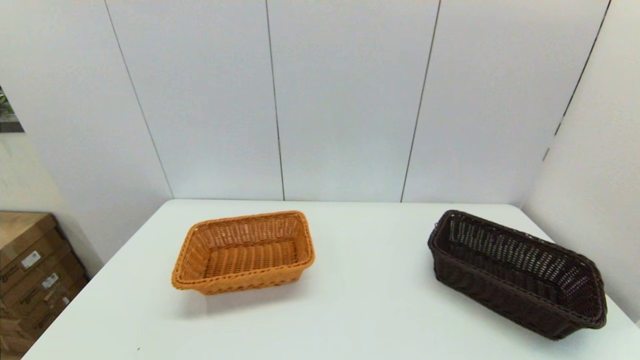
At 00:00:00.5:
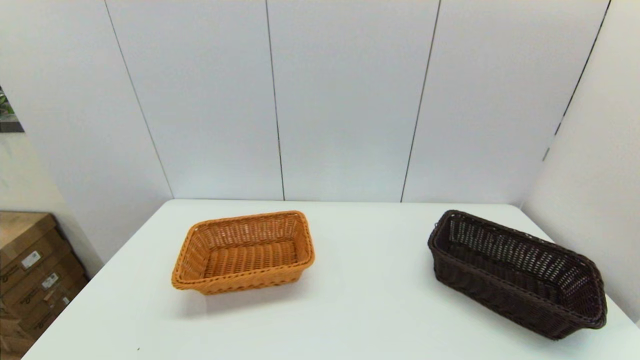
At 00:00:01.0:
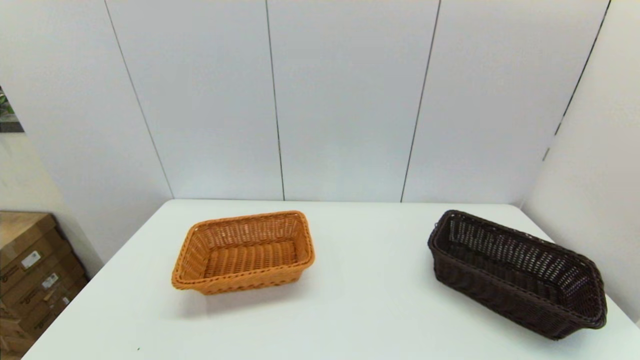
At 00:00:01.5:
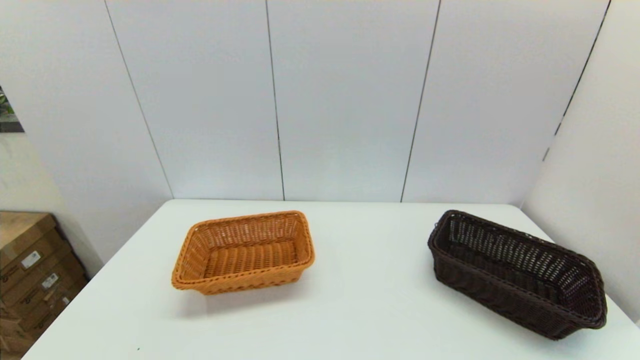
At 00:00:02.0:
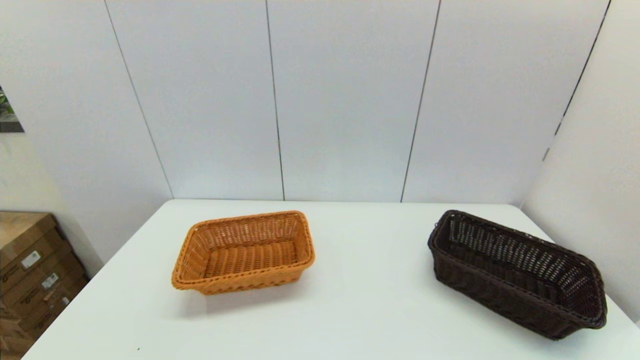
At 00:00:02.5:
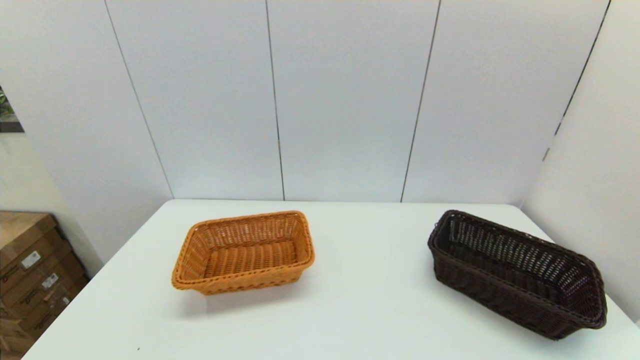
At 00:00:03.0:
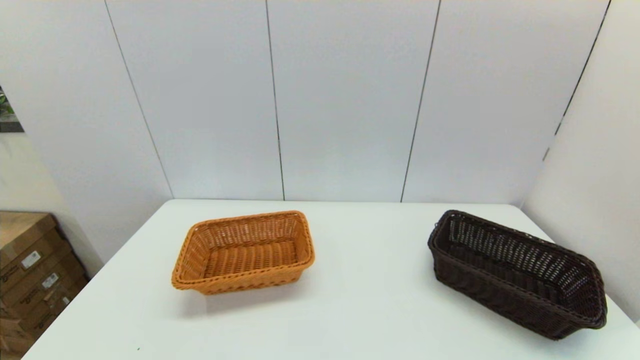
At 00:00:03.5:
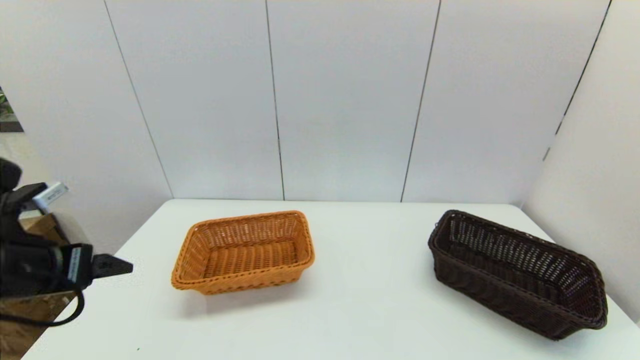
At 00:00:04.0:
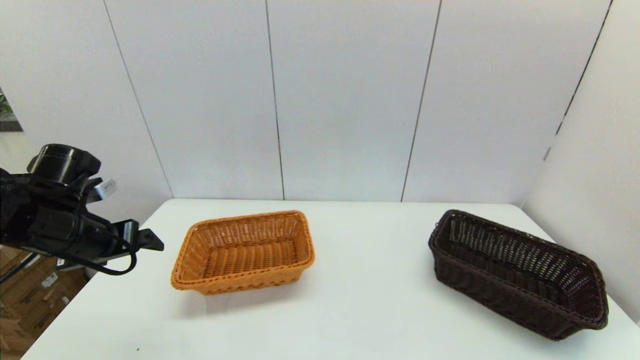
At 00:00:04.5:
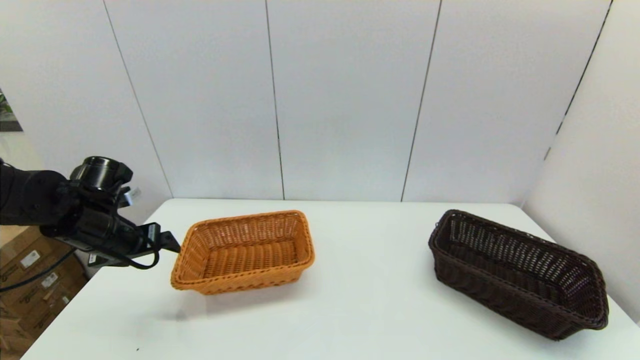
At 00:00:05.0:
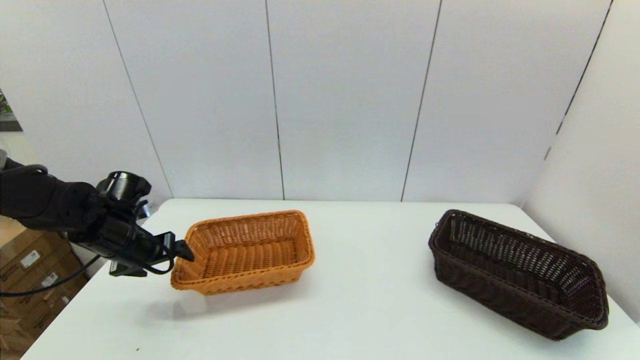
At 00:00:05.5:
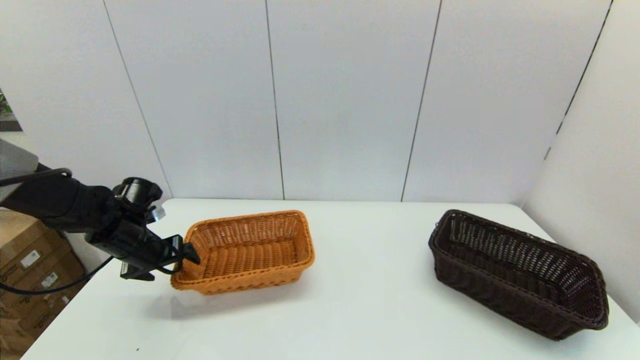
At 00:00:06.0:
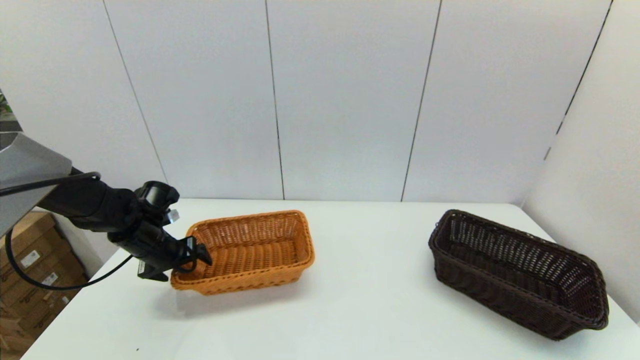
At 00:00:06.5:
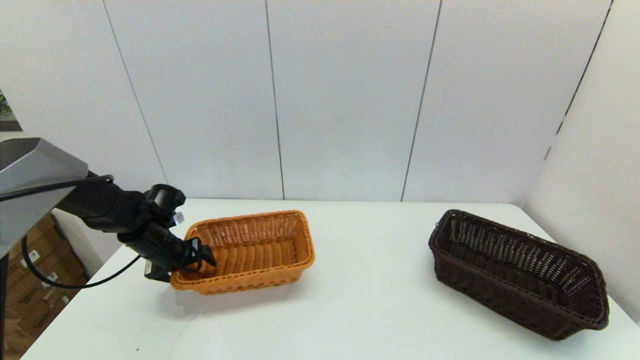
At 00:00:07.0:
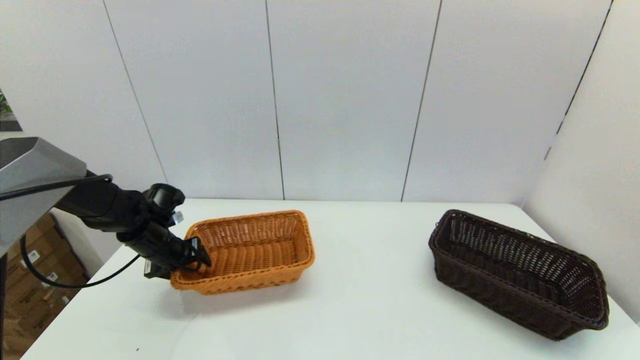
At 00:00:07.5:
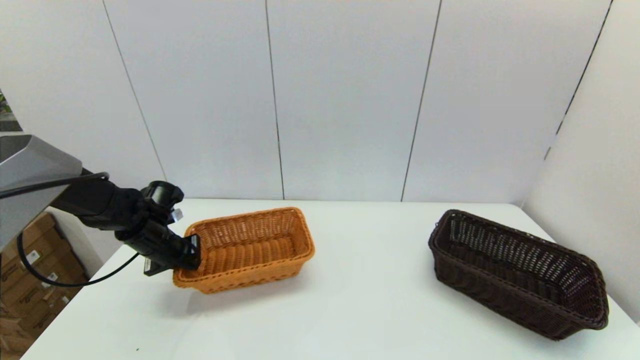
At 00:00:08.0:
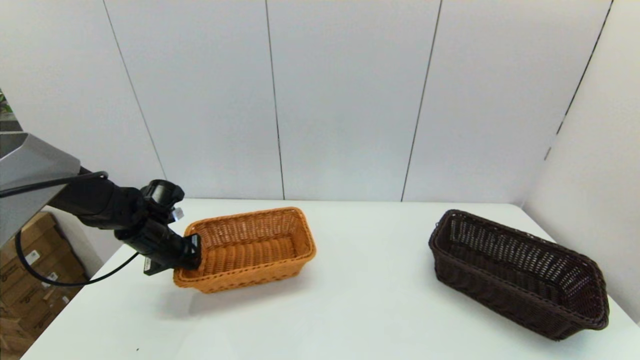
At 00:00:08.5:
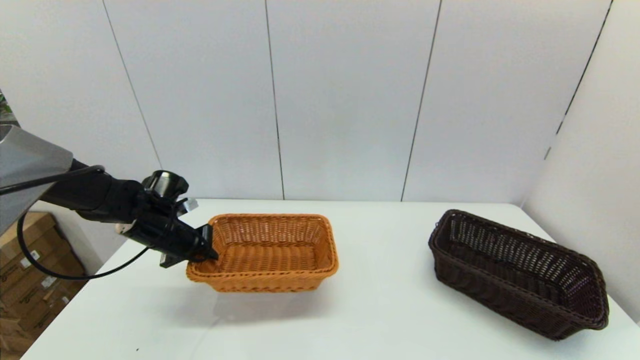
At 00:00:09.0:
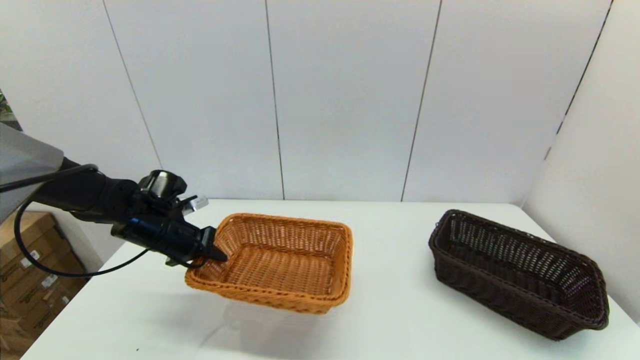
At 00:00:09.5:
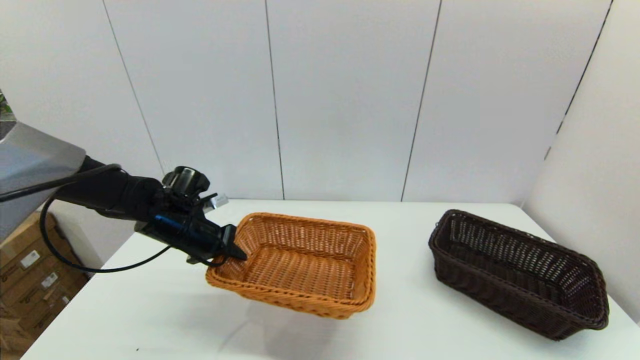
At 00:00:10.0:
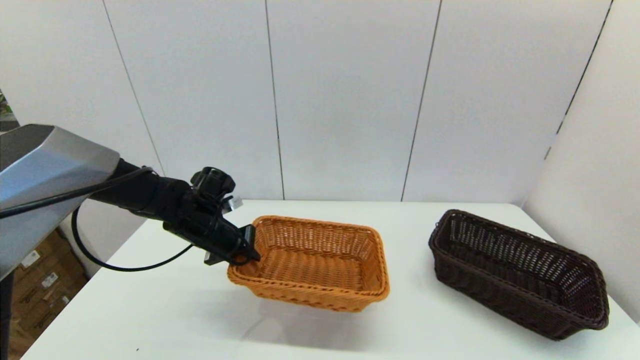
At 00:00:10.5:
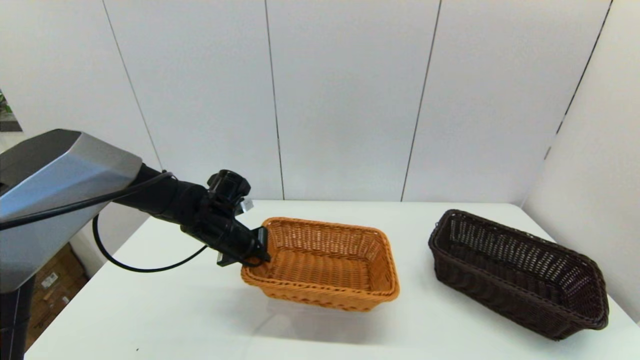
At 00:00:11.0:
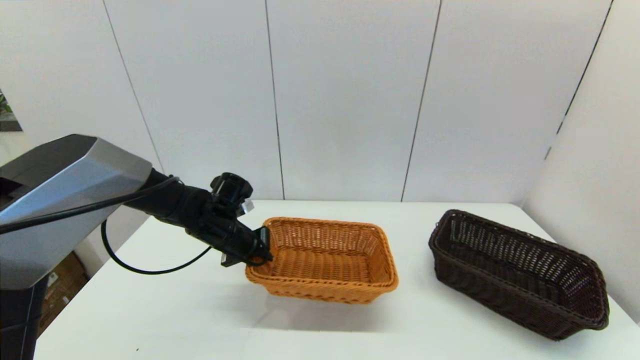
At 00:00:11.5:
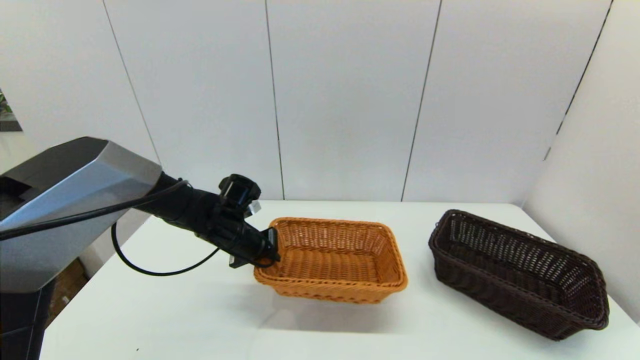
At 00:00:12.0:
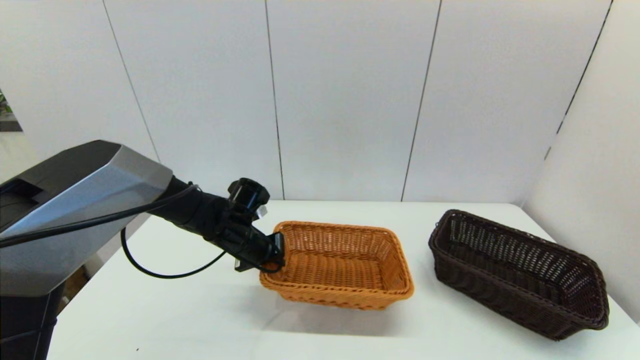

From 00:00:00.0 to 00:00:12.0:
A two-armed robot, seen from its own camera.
Task of the whole recording: stack a basket on top of another basket.
Step, from 00:00:03.0 to 00:00:08.5: Grasp the light basket with the left gripper.
From 00:00:00.0 to 00:00:02.0: Neither gripper changes place.
From 00:00:02.0 to 00:00:04.0: The left gripper travels forward by about 30 cm.
From 00:00:04.0 to 00:00:06.0: The left gripper moves downward and forward, roughly 15 cm.
From 00:00:06.0 to 00:00:08.0: The left gripper closes.
From 00:00:08.0 to 00:00:10.0: The left gripper is displaced to the right by roughly 10 cm.
From 00:00:10.0 to 00:00:12.0: The left gripper is displaced to the right by roughly 5 cm.

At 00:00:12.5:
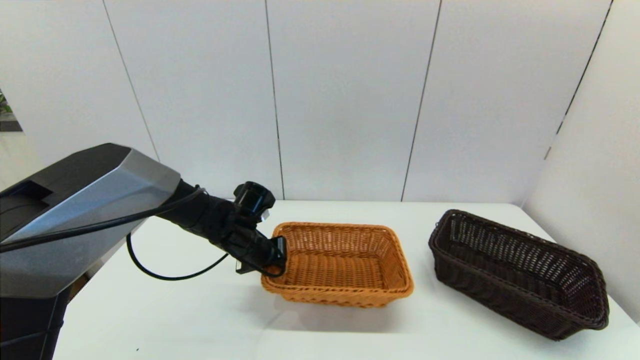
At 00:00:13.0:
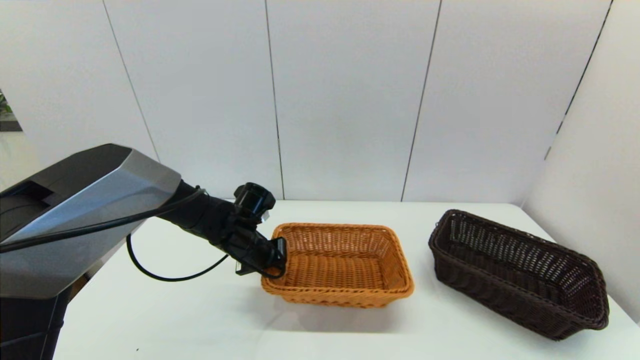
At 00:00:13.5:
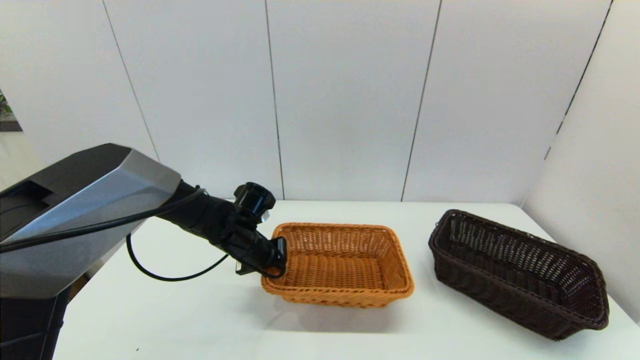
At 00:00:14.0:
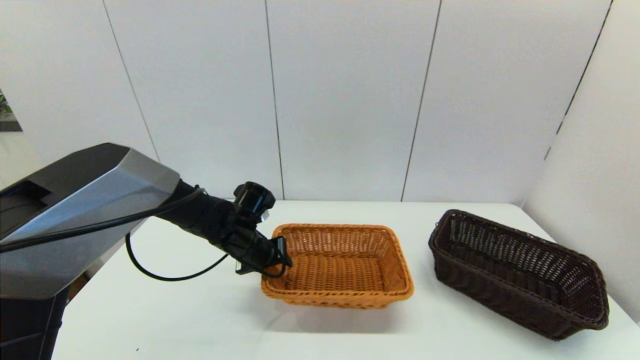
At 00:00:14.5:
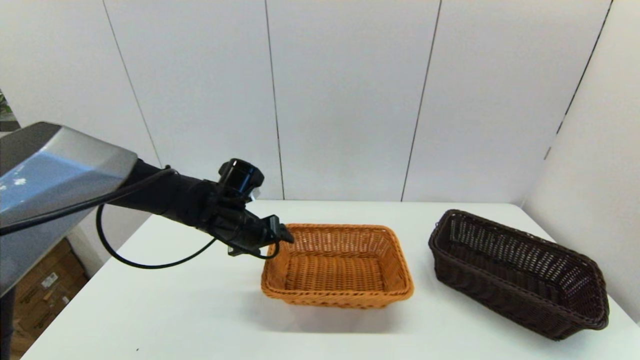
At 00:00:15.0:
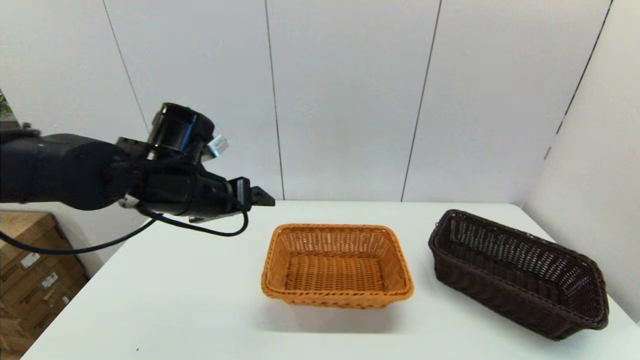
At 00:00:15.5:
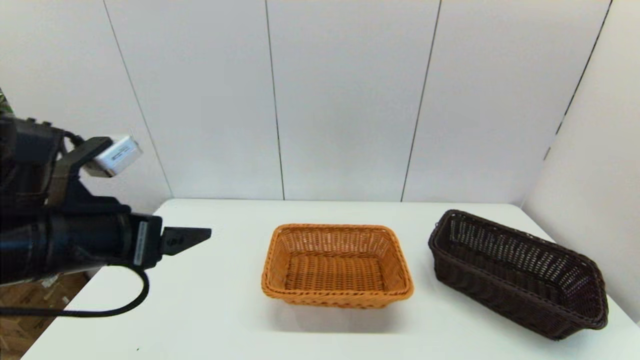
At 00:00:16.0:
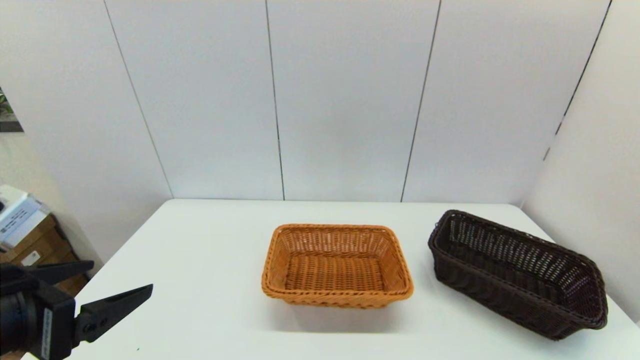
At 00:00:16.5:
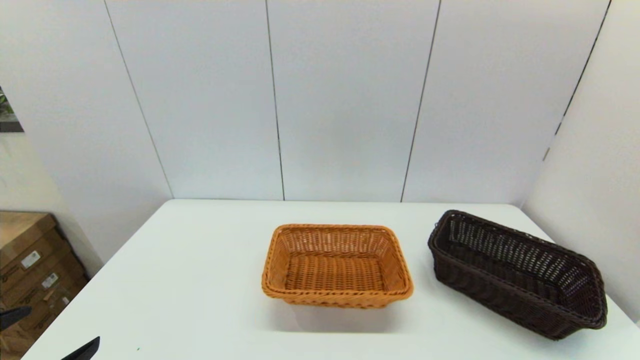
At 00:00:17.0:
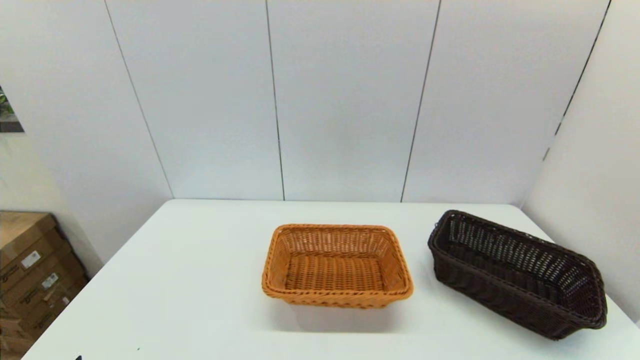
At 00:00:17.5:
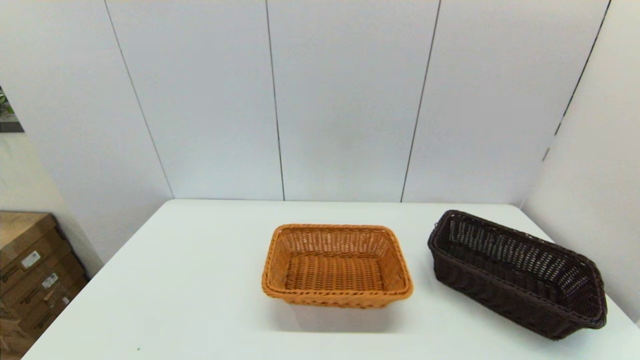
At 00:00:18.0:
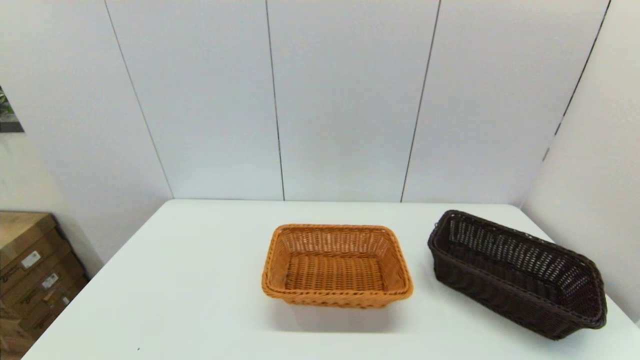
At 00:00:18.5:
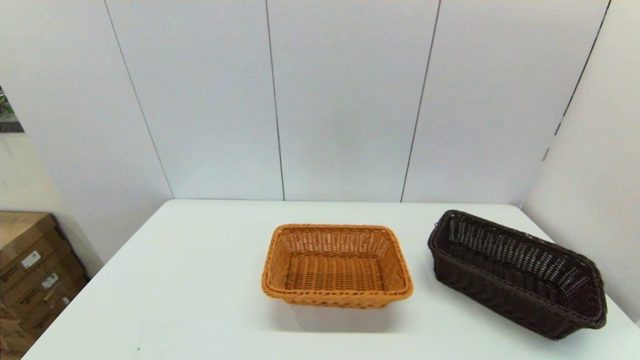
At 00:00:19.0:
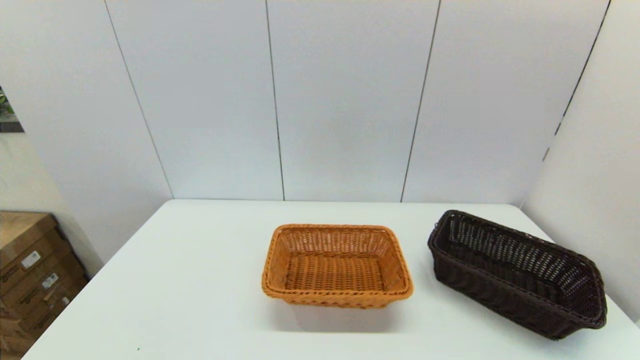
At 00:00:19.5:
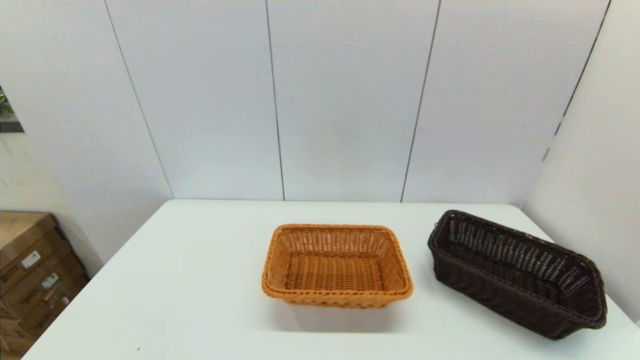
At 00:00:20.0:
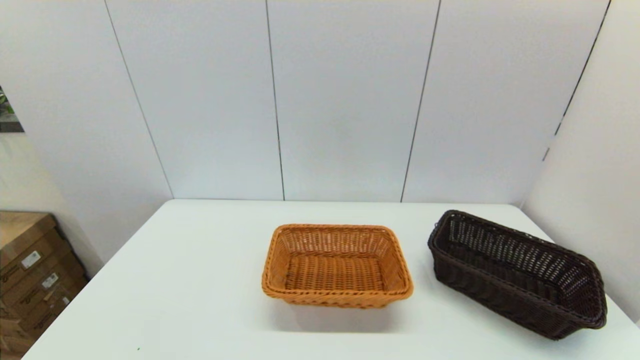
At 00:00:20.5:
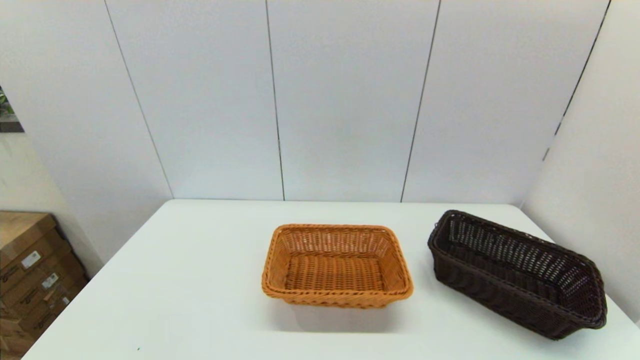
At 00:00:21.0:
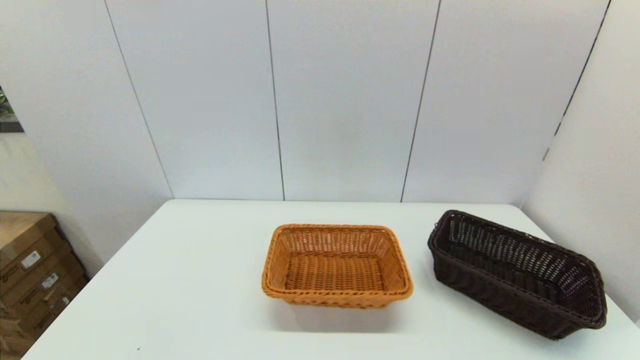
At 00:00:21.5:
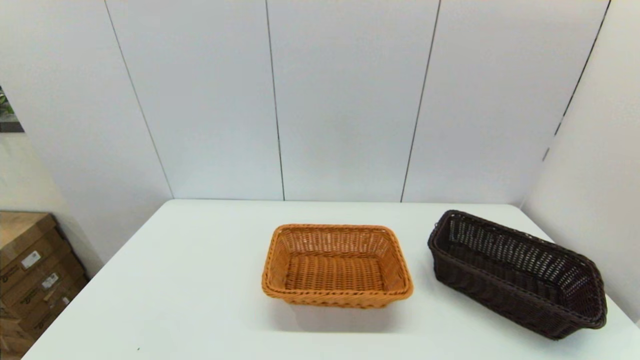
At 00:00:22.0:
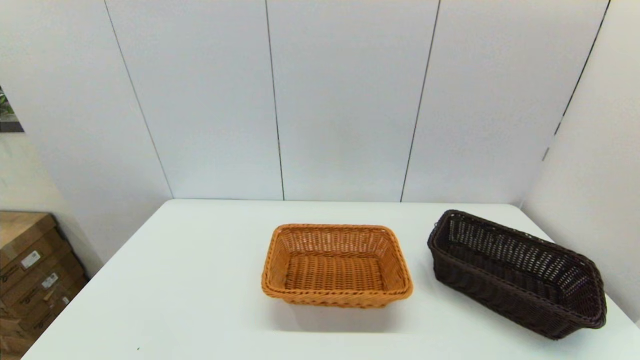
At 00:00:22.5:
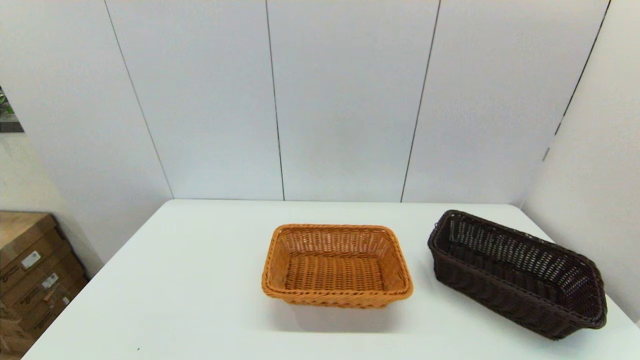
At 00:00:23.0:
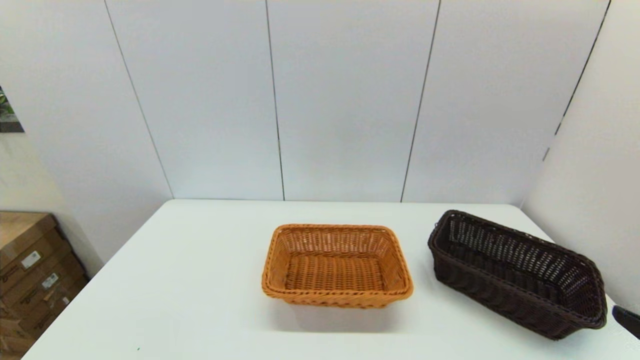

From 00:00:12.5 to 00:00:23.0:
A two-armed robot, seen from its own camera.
Task of the whole recording: stack a basket on top of another basket.
Step, from 00:00:12.5 to 00:00:14.5: Place the light basket on the middle of the table with the left gripper.
From 00:00:12.5 to 00:00:14.5: The left gripper travels upward by some 5 cm, and opens its fingers.
From 00:00:14.5 to 00:00:16.5: The left gripper goes roughly 35 cm backward and to the left.
From 00:00:19.0 to 00:00:21.0: Both grippers stay put.
